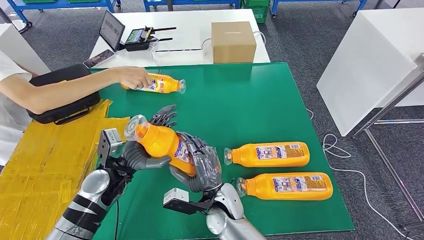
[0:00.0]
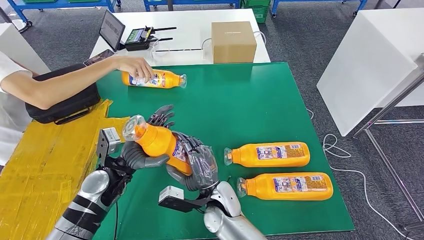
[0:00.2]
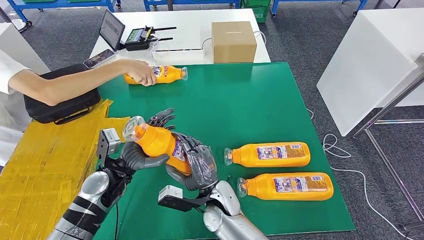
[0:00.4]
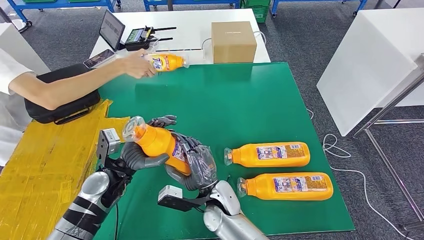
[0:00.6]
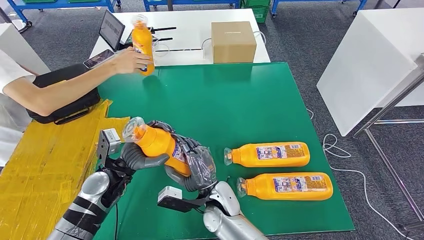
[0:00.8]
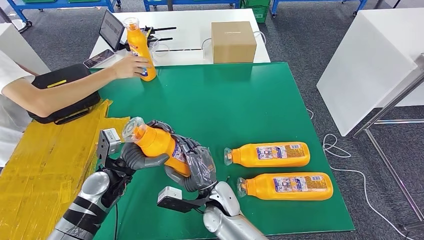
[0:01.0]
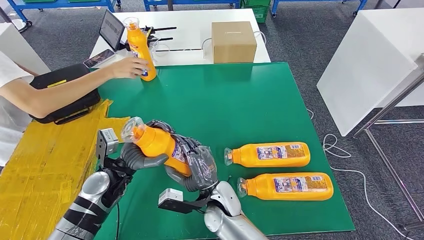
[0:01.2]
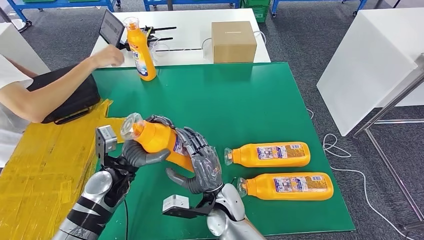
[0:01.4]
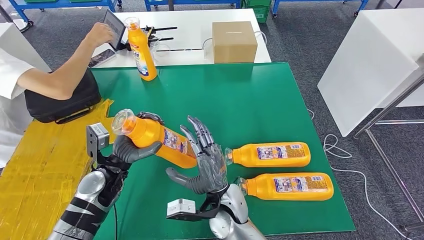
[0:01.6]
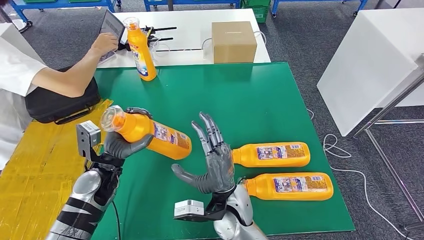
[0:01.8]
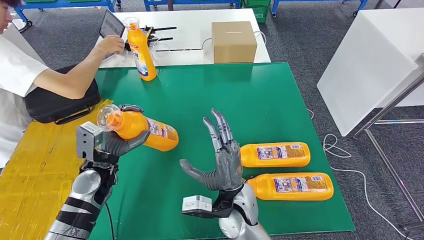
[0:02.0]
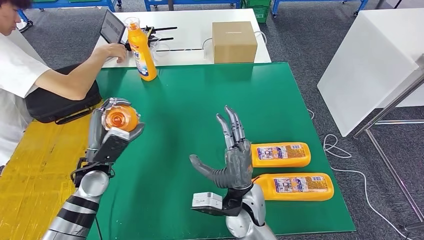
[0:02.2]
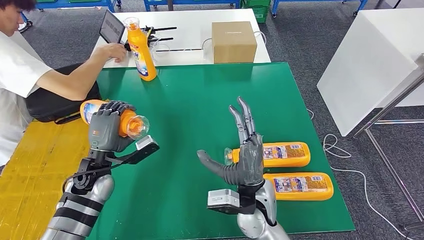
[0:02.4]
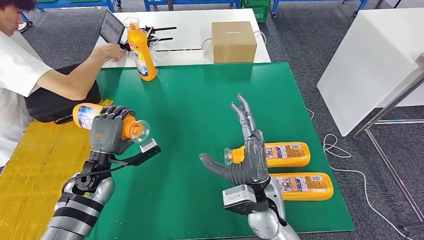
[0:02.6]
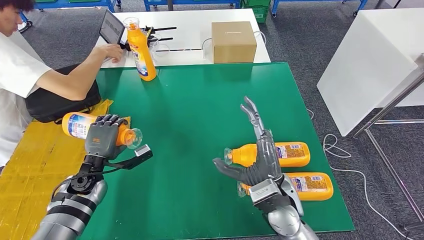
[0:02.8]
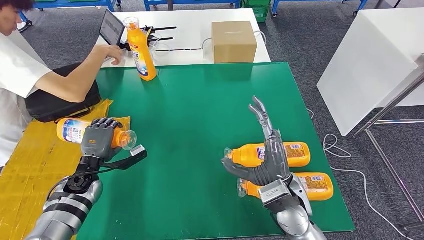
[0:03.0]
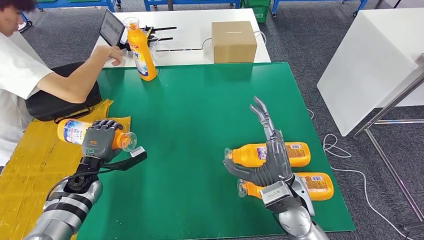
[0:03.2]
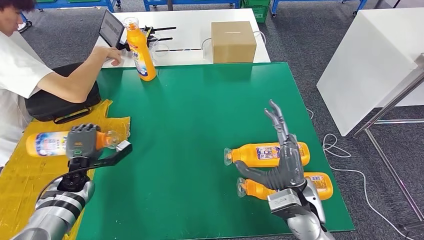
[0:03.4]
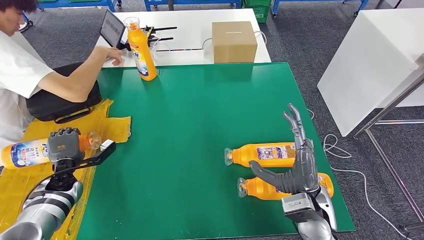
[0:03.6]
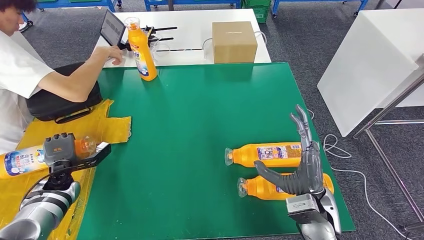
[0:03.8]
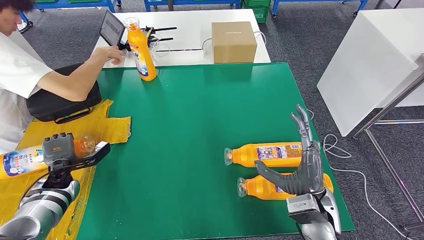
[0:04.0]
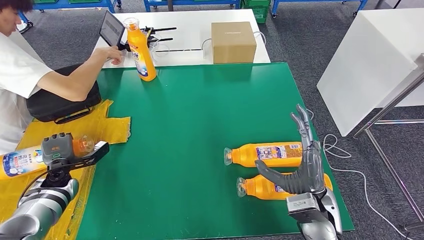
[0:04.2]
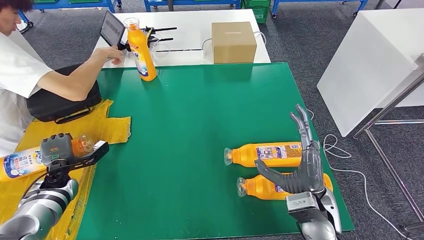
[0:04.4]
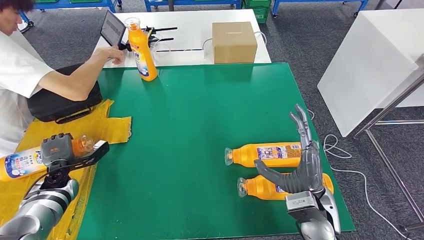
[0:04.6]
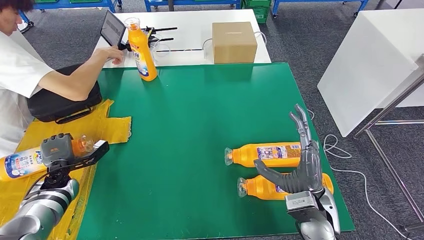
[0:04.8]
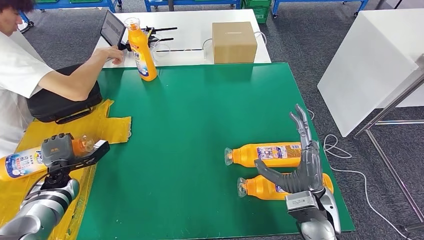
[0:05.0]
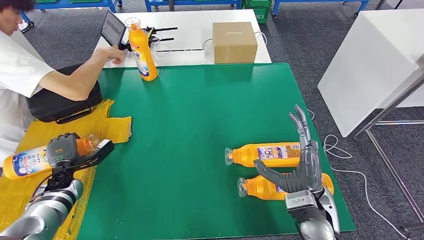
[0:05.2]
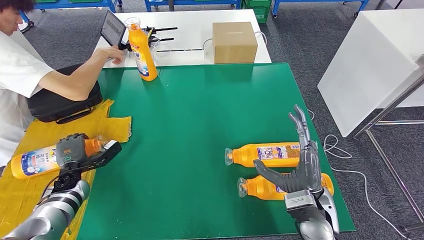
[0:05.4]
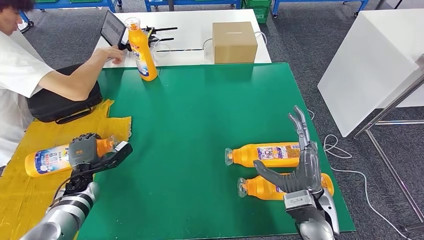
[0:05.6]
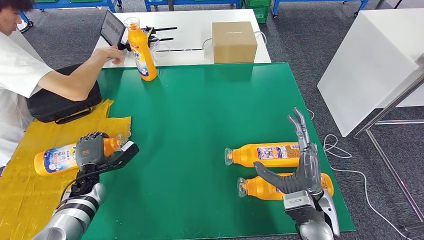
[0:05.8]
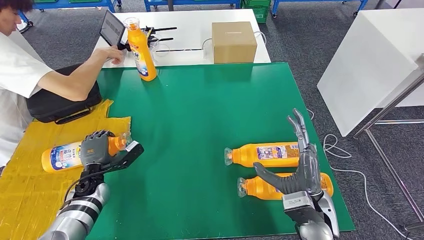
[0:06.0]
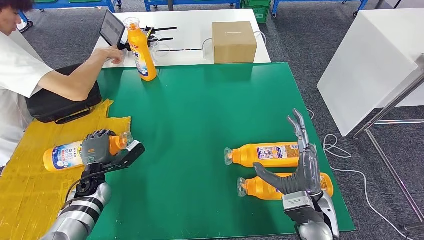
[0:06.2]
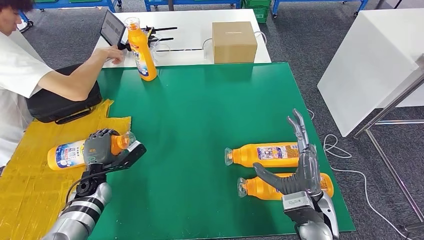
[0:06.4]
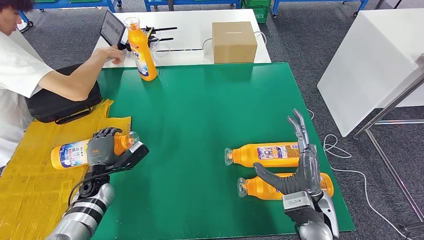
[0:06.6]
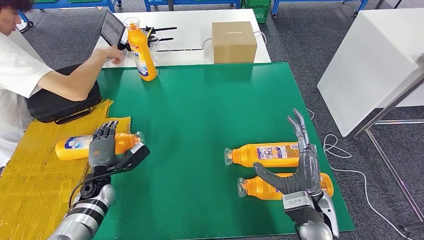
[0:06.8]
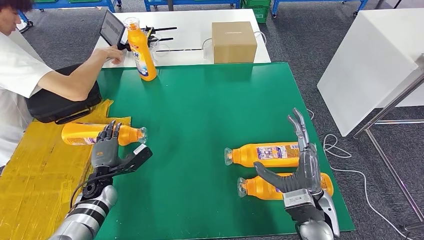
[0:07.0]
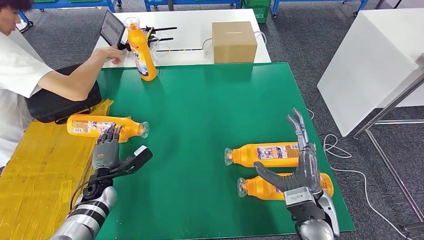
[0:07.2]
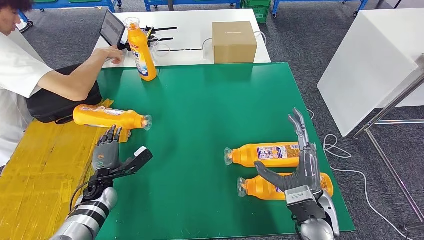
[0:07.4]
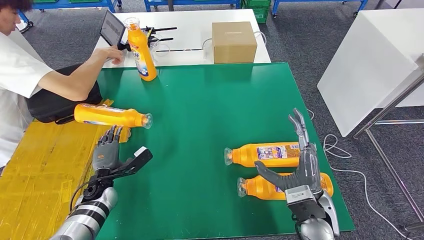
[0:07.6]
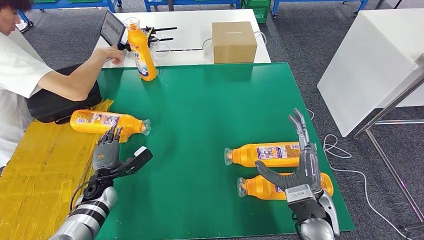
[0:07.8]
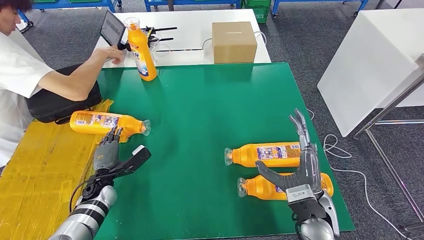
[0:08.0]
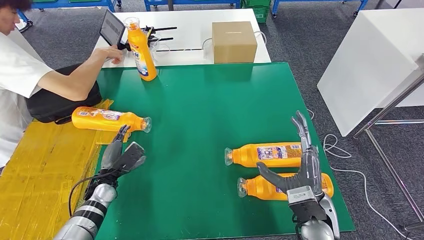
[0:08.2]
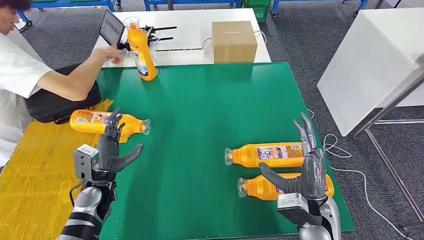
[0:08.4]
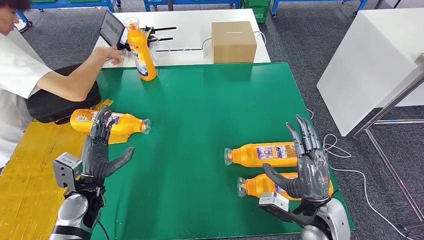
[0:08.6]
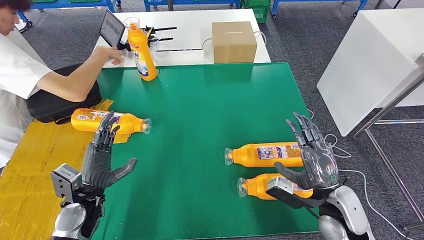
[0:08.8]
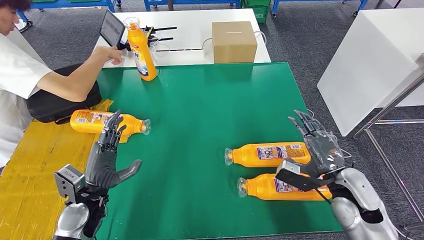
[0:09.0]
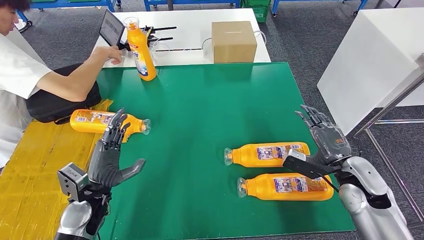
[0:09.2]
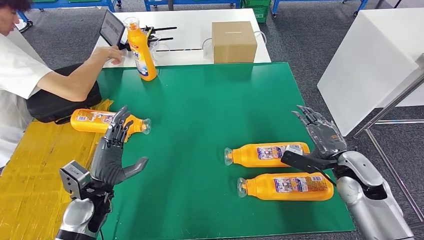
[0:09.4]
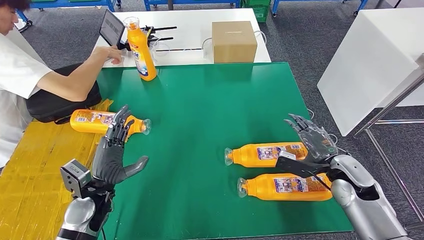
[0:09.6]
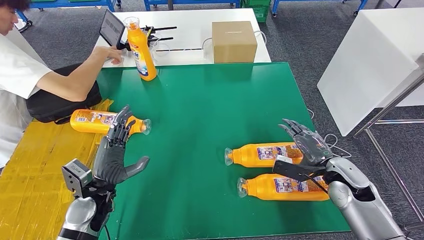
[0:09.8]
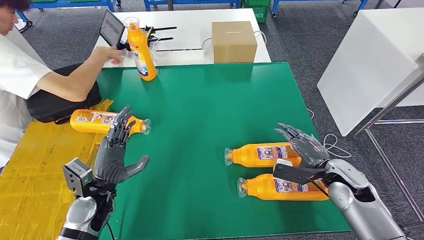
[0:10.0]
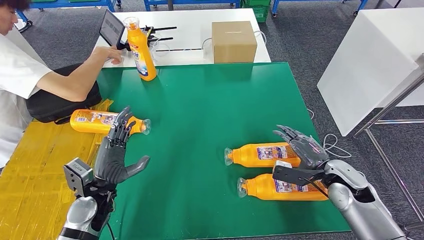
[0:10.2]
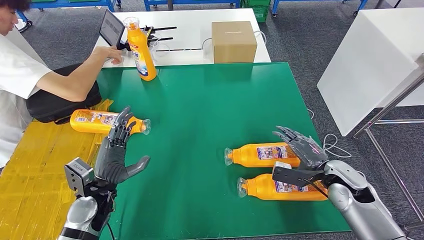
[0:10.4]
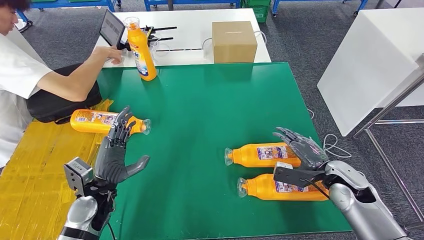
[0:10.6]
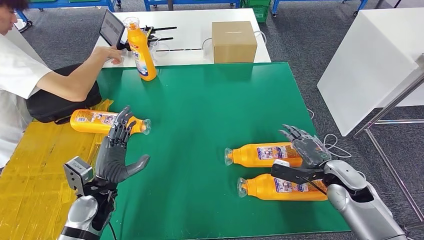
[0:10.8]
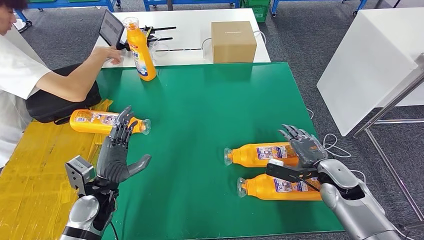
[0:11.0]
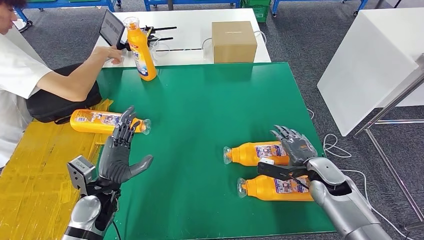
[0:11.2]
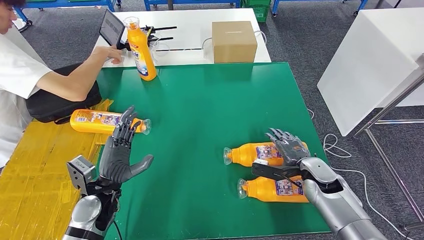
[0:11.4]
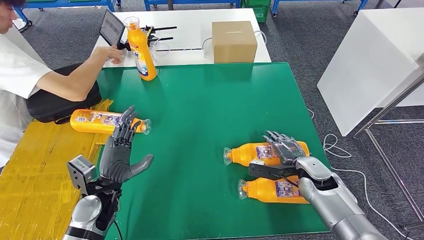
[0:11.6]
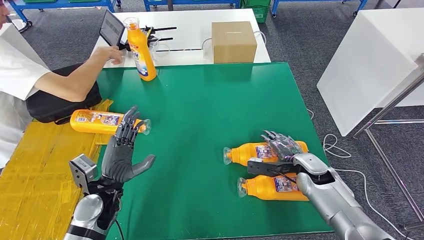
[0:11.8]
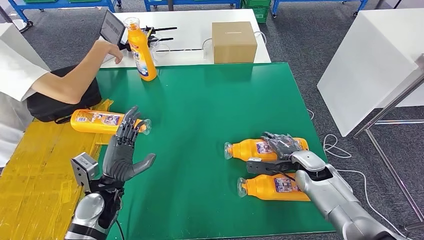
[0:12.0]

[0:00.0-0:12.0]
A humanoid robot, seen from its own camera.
Step, 0:00.0 to 0:03.4: Flip the fast-moving consumer goods bottle to the front side.
0:00.0 to 0:01.6: The hands make only small movements.
0:03.0 to 0:04.4: The left hand shifts approximately 10 cm to the left; the right hand goes roughly 5 cm to the right.
0:04.4 to 0:06.0: The left hand shifts approximately 10 cm to the right.
0:06.0 to 0:07.6: The hands stay close to where they were, moving slightly.
0:07.6 to 0:09.0: The left hand travels upward and backward by roughly 10 cm; the right hand shifts roughly 10 cm to the right.
0:09.0 to 0:10.4: The right hand moves about 5 cm.
0:10.4 to 0:12.0: The right hand moves forward, about 5 cm.

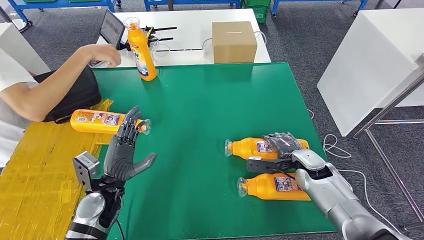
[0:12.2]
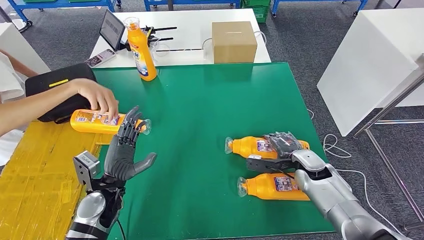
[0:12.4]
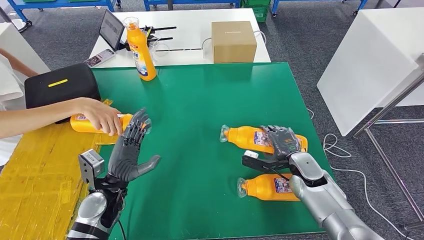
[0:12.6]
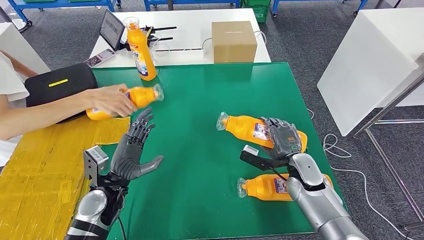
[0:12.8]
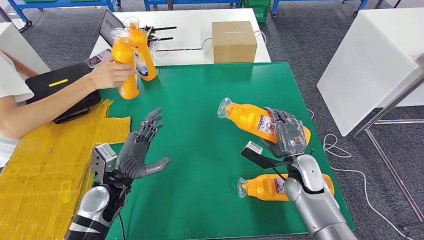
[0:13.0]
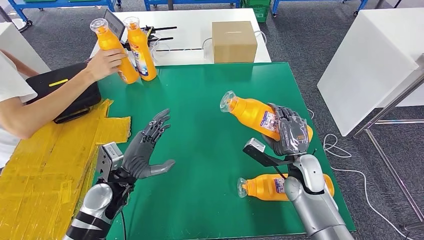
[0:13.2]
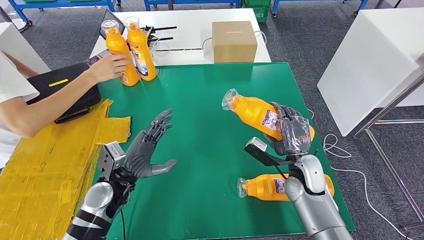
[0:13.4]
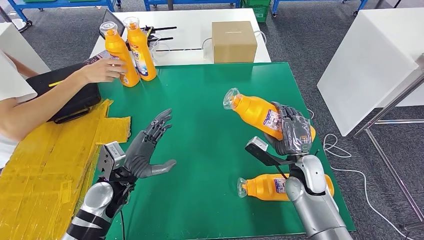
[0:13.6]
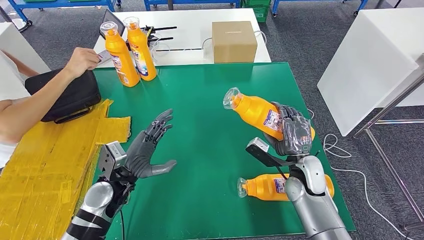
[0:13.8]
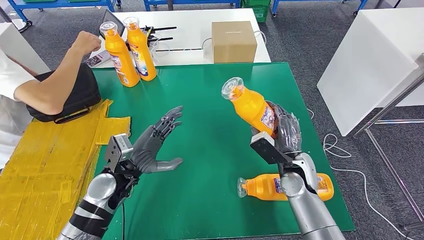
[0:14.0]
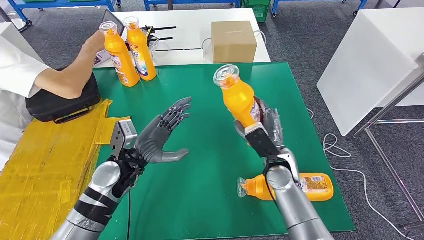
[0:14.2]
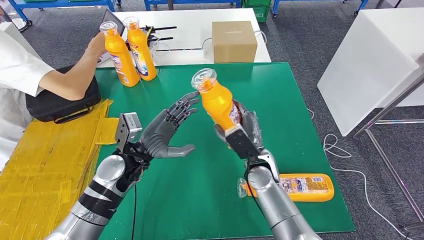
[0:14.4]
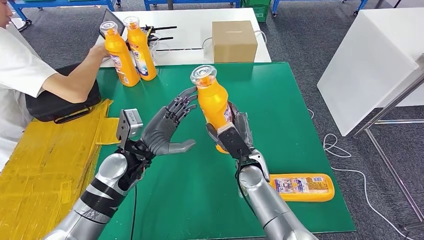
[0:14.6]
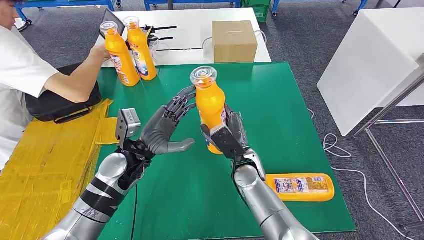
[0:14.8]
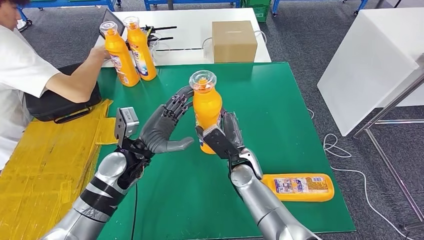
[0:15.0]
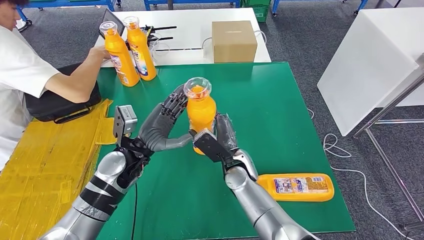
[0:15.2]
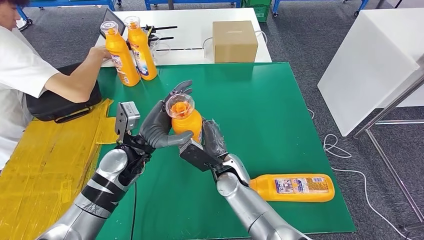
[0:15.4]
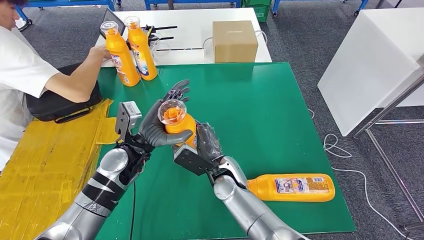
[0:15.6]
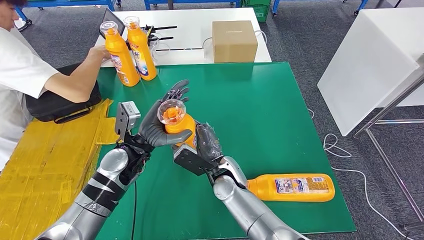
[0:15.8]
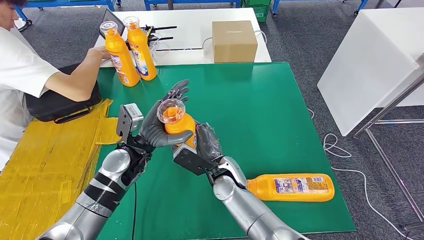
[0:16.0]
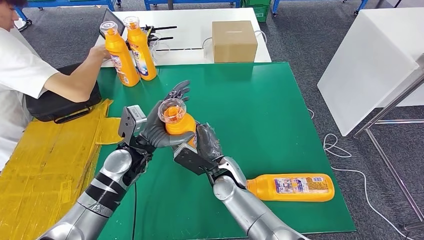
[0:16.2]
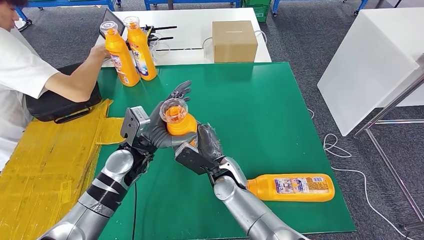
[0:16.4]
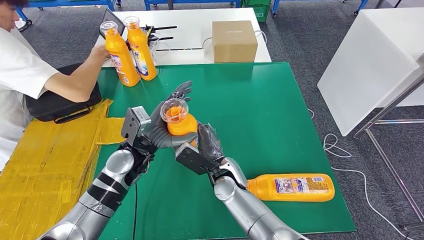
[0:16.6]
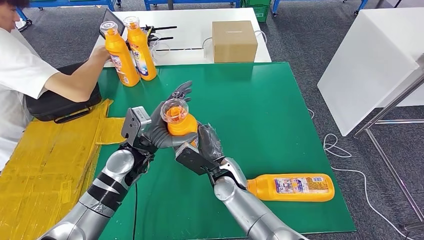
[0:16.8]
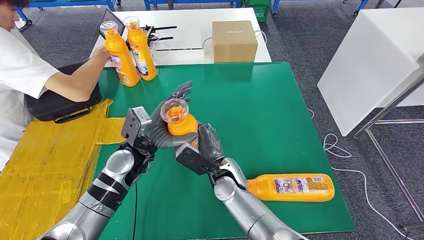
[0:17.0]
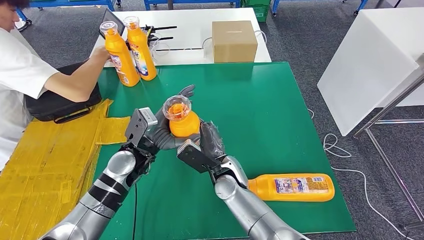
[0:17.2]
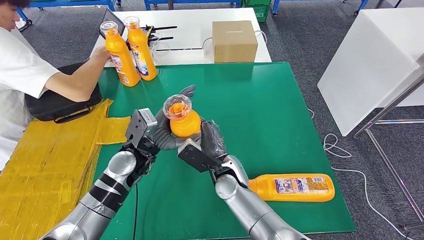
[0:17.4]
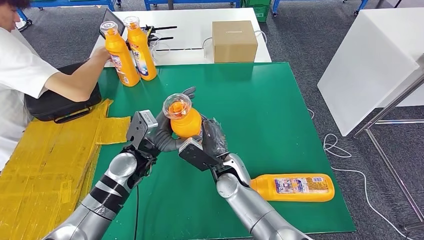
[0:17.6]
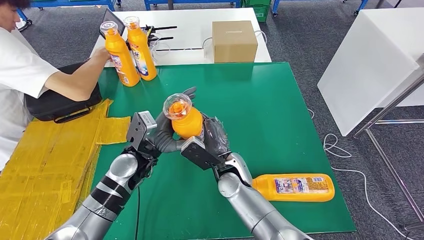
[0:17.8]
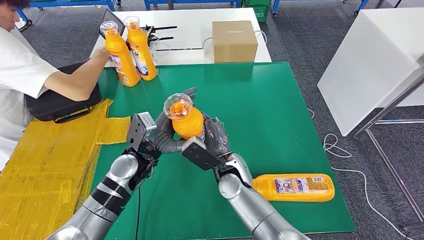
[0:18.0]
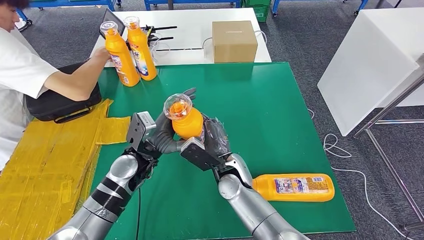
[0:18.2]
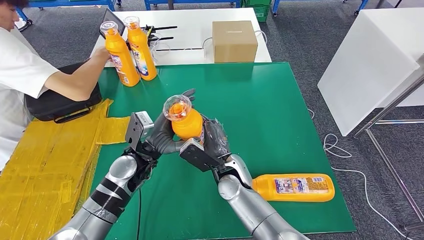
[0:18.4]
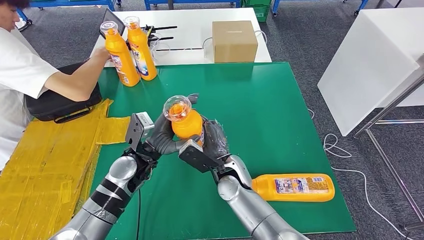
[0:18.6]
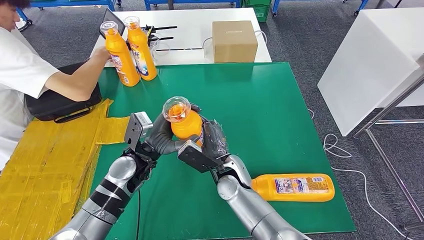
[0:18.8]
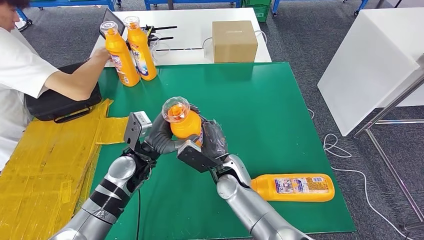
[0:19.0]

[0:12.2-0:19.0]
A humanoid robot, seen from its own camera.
Step, 0:12.2 to 0:14.8: Pick up the fast-moving consumer goods bottle from the table.
0:15.0 to 0:16.2: The right hand shifts by some 5 cm.
0:16.2 to 0:19.0: The hands make only small movements.
